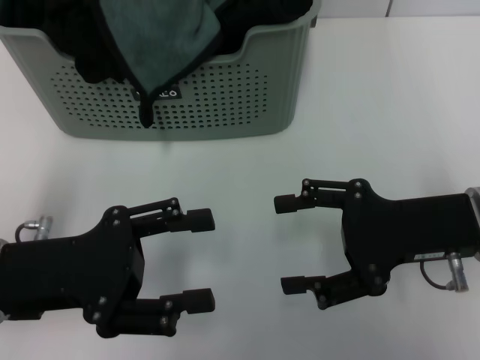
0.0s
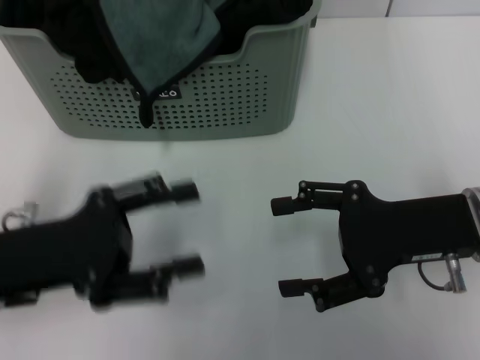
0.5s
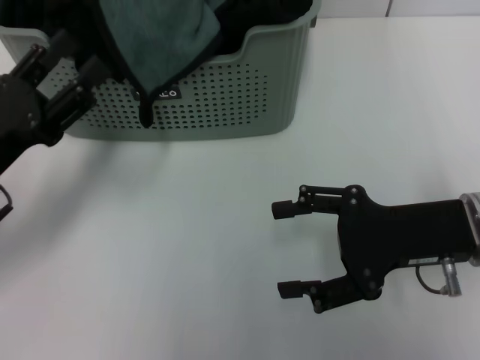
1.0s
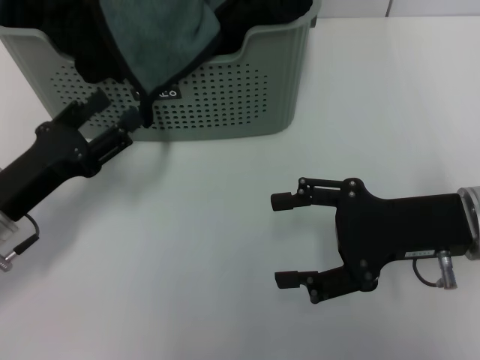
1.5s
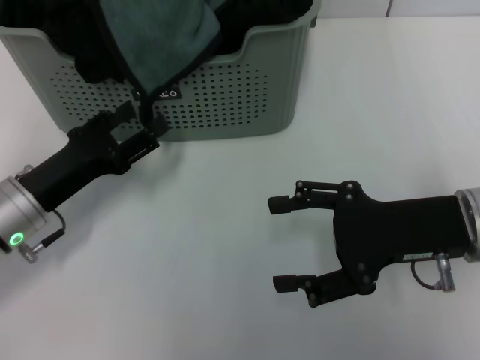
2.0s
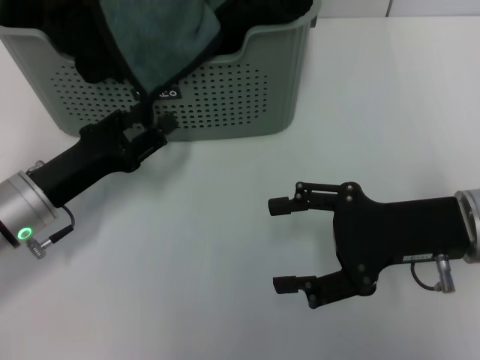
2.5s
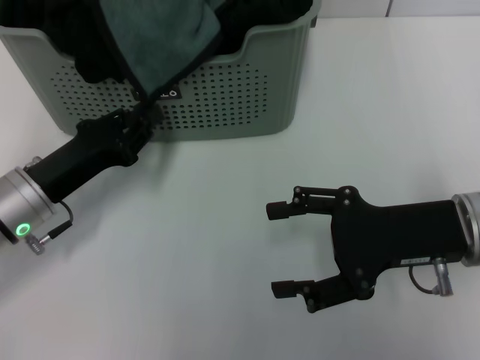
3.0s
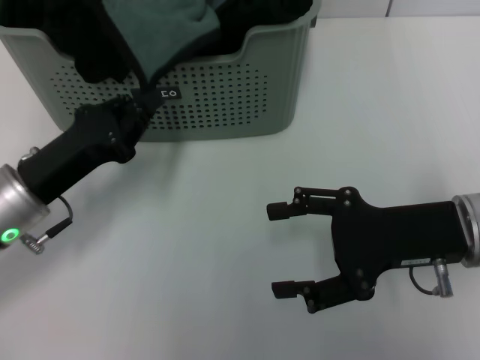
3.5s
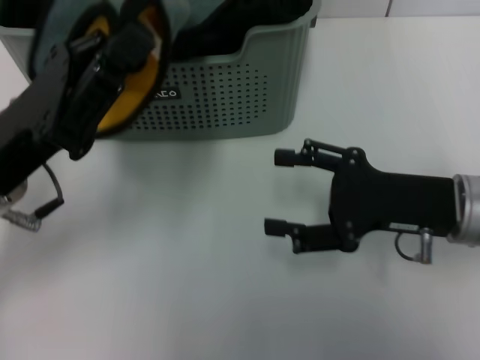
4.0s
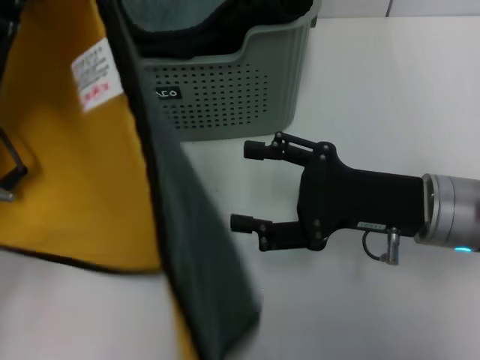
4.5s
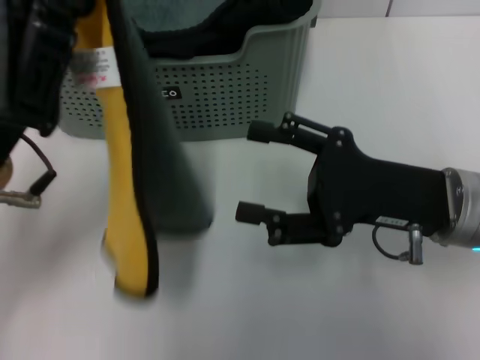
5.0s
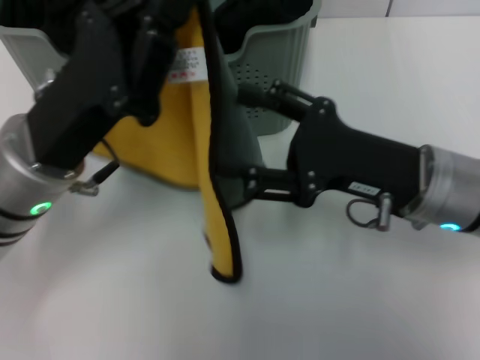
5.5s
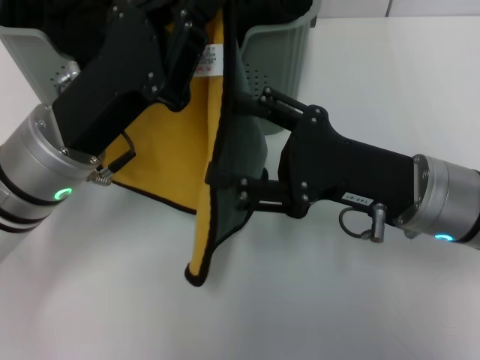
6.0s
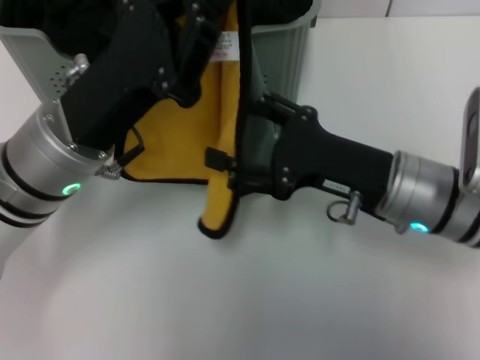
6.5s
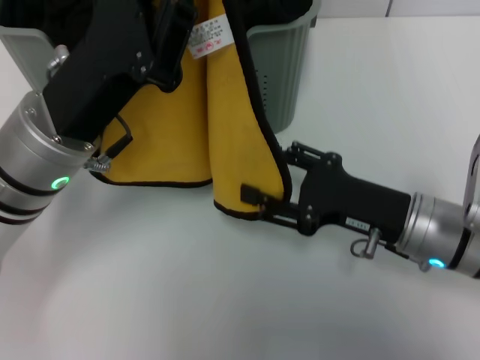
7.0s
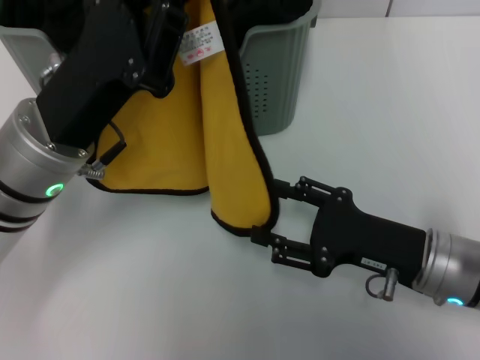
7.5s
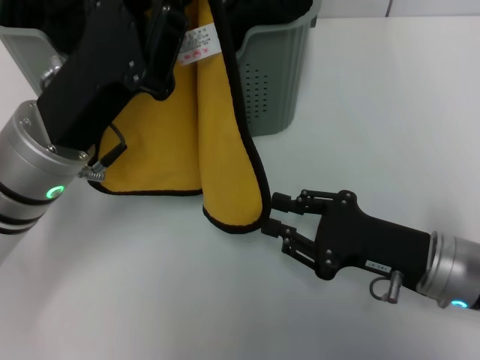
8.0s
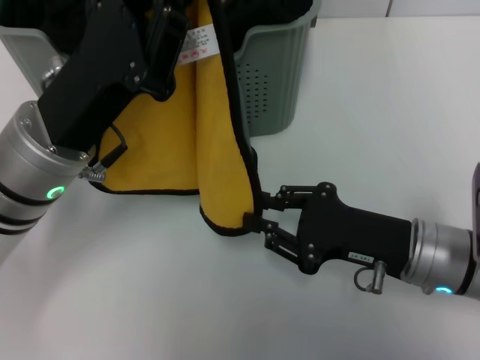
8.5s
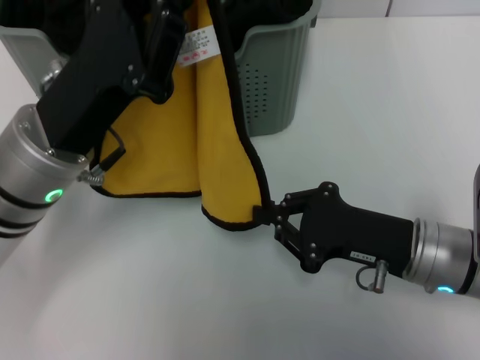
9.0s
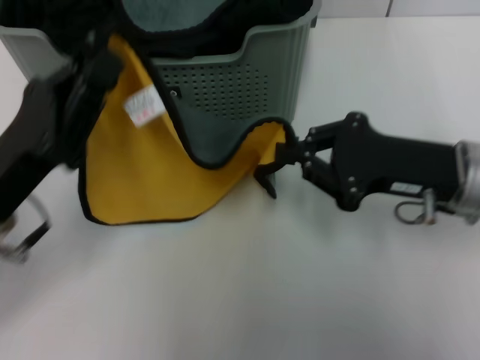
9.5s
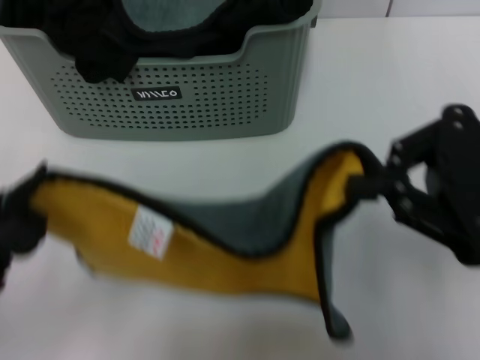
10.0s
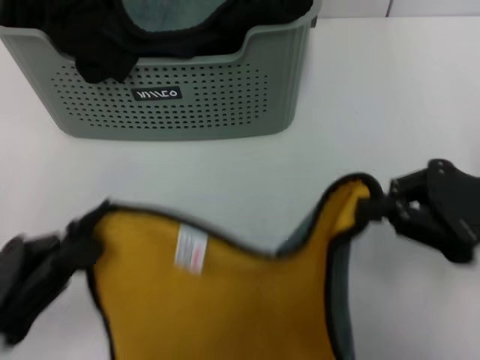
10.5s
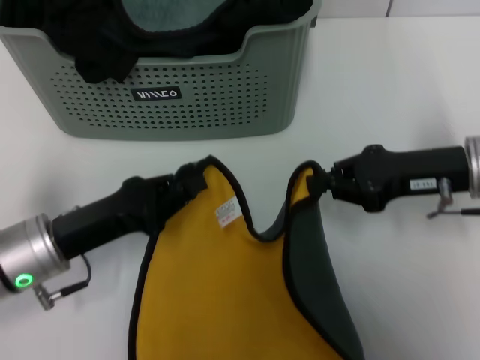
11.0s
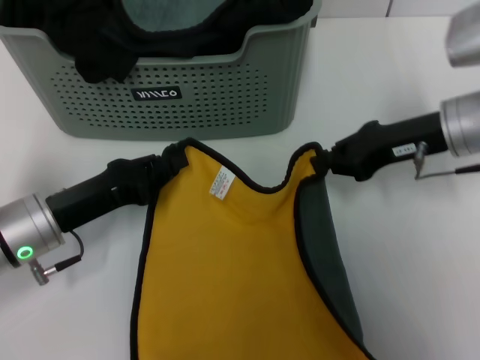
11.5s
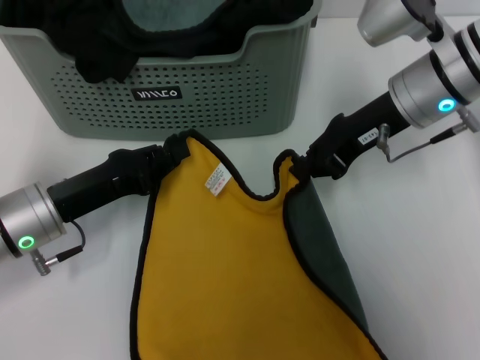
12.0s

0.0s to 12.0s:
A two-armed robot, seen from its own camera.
Task of the whole recording: pick up the towel from the storage box and lay it flat on the table.
Step, 0.0s to 3.0s: Pick up a towel with the left gripper.
Step, 3.5s to 8.5s: Spread the towel flat with the left gripper.
0.0s to 2.0s: The left gripper shifts roughly 10 cm downward and forward.
2.0s to 4.0s: The left gripper heads upward, covering some 10 cm, and closes up.
4.0s to 6.0s: The left gripper ends up about 5 cm from where it was.
6.0s to 8.0s: The right gripper heads downward, covering some 5 cm, and closes.
8.0s to 10.0s: The left gripper goes roughly 15 cm backward and to the left; the right gripper is displaced upward by roughly 20 cm, and closes up.
10.0s to 12.0s: The left gripper heads forward and downward, covering about 15 cm; the right gripper shifts roughly 20 cm forward and to the left.

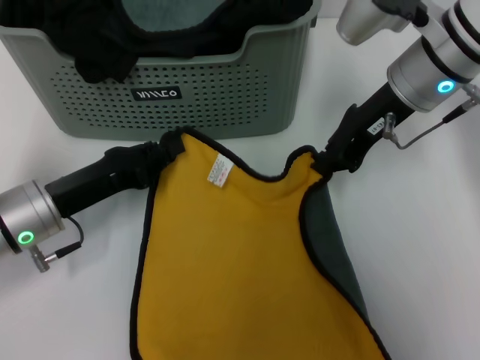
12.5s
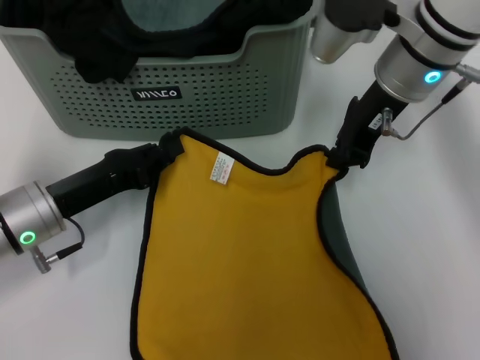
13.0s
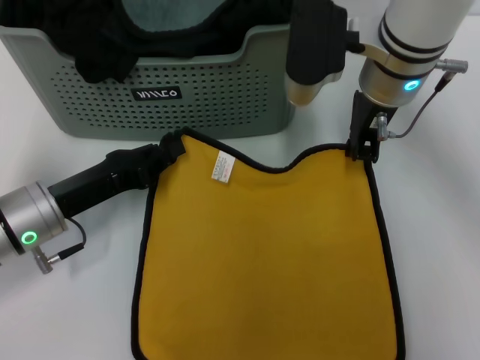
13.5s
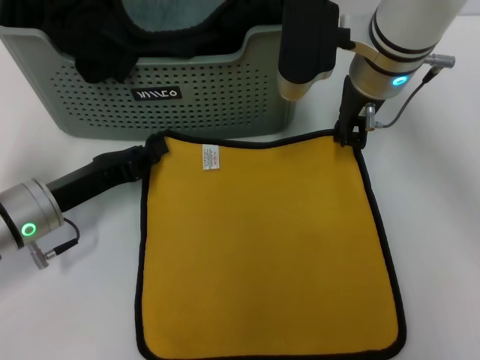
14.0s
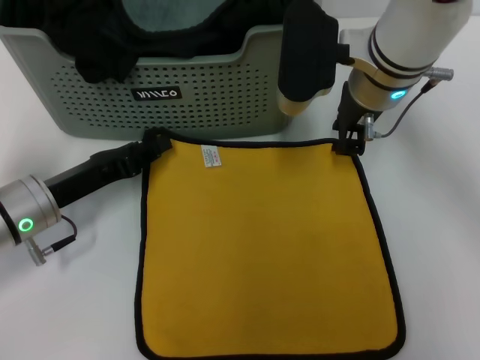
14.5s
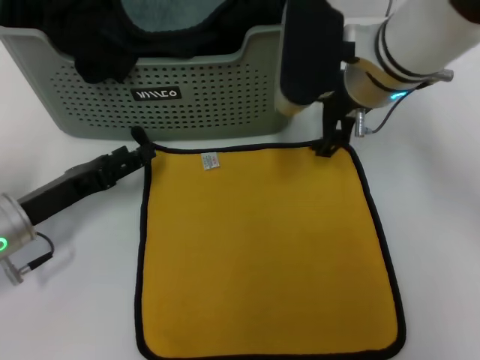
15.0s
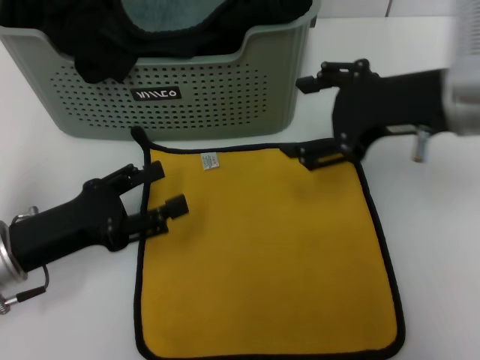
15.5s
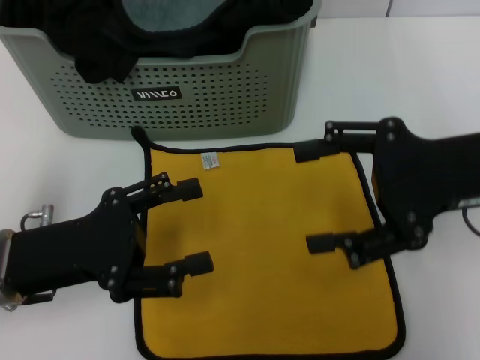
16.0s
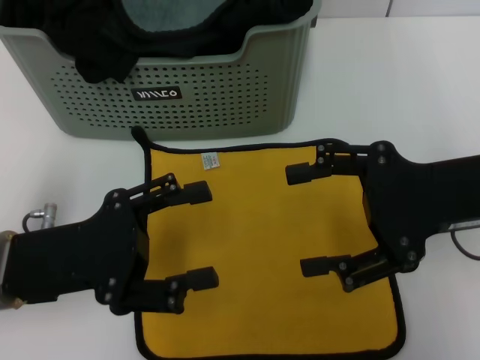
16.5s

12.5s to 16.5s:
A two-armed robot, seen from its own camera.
Task of the whole recording: pick up the towel from the storage box and lay it flat on the table.
Step, 12.5s to 14.5s: Spread the towel flat with the right gripper.
12.5s to 14.5s: The right gripper heads to the left, covering about 5 cm.
14.5s to 16.5s: The right gripper travels backward and to the right by approximately 20 cm, and opens; the left gripper travels backward and upward by roughly 10 cm, and opens up.
